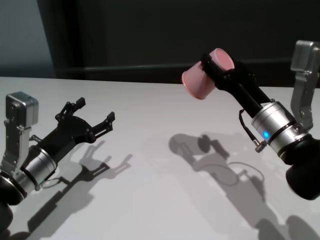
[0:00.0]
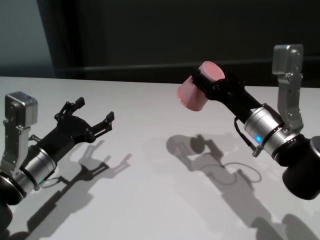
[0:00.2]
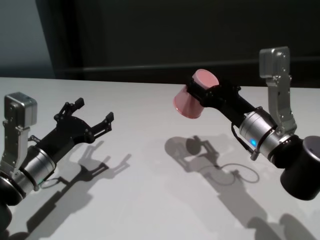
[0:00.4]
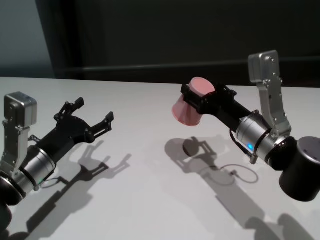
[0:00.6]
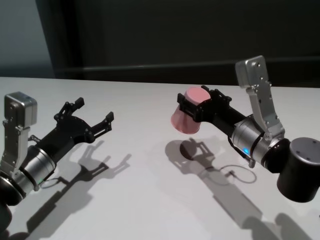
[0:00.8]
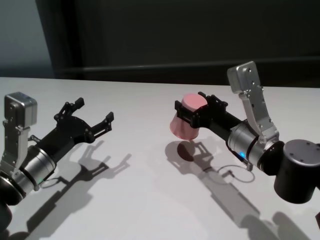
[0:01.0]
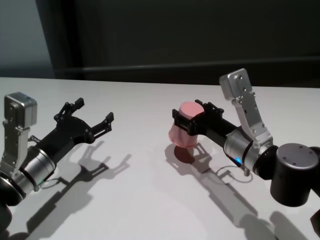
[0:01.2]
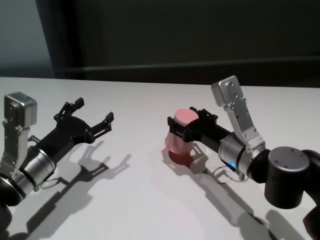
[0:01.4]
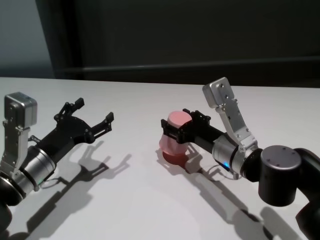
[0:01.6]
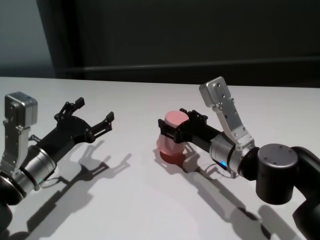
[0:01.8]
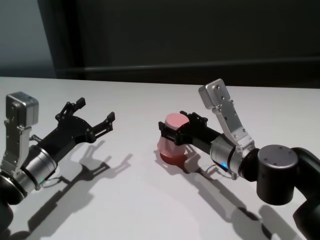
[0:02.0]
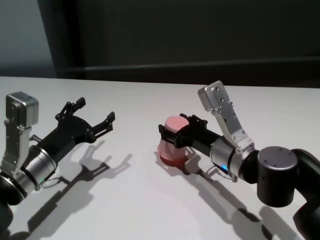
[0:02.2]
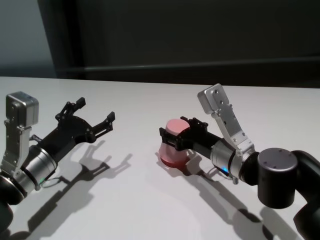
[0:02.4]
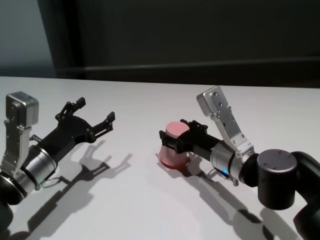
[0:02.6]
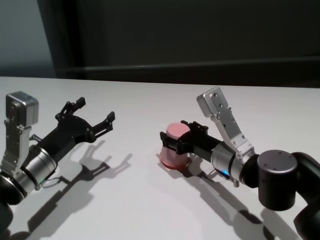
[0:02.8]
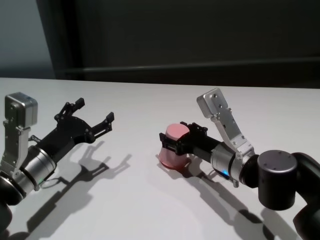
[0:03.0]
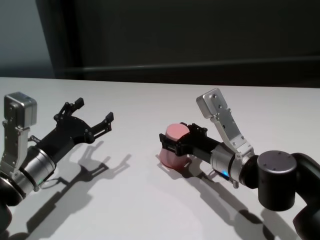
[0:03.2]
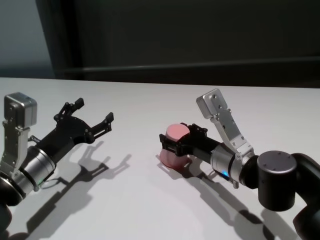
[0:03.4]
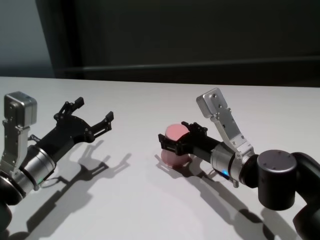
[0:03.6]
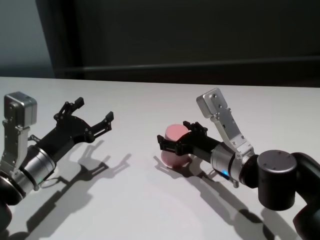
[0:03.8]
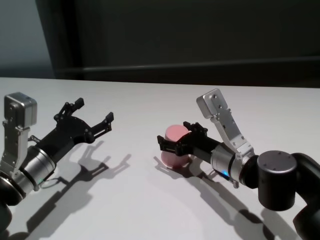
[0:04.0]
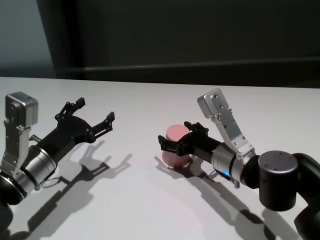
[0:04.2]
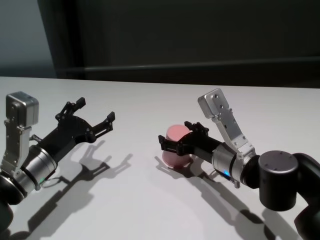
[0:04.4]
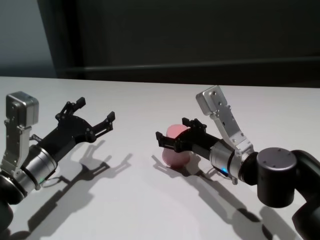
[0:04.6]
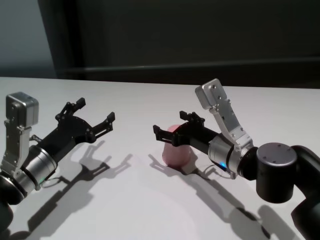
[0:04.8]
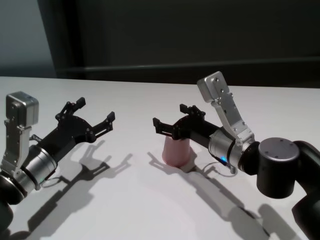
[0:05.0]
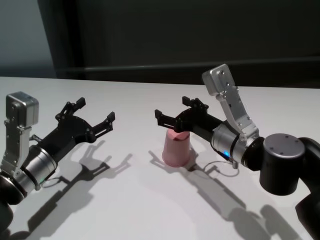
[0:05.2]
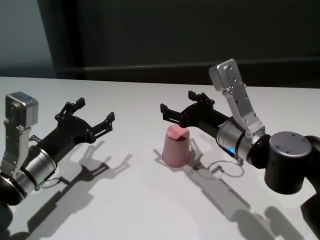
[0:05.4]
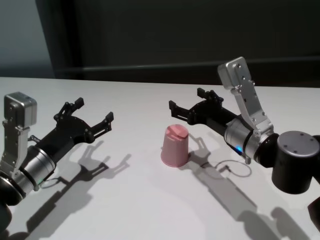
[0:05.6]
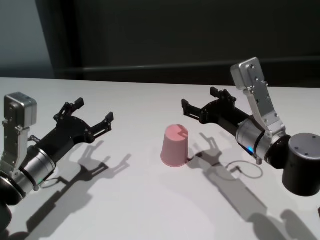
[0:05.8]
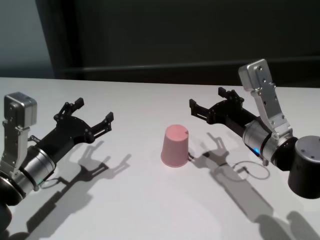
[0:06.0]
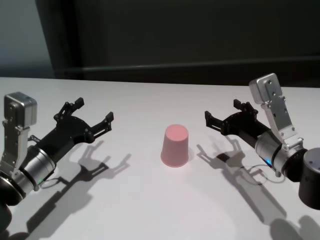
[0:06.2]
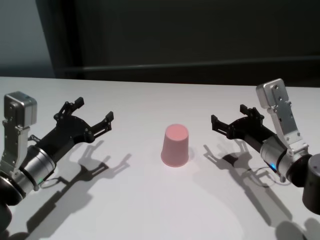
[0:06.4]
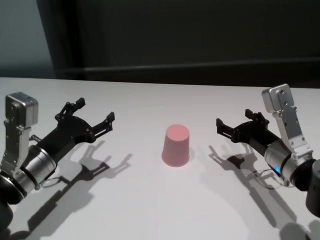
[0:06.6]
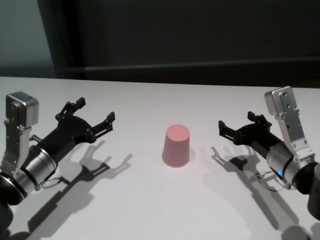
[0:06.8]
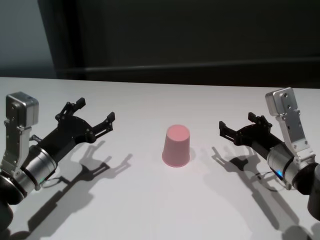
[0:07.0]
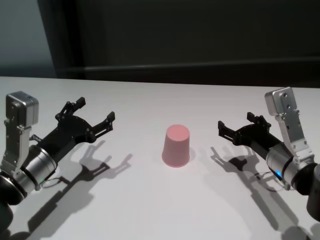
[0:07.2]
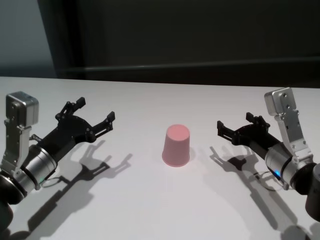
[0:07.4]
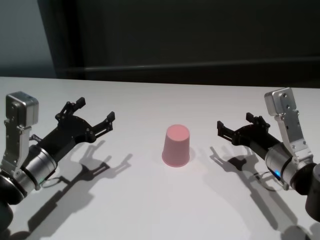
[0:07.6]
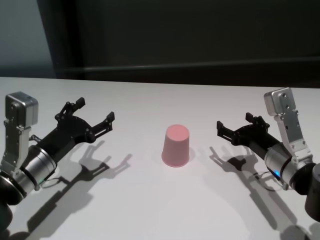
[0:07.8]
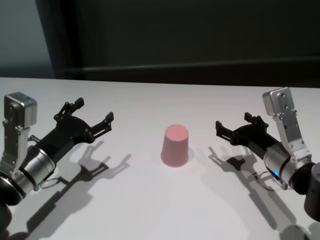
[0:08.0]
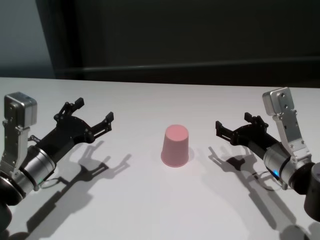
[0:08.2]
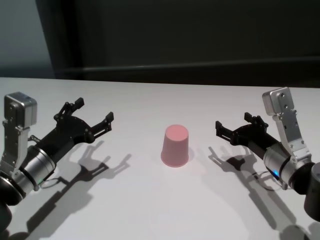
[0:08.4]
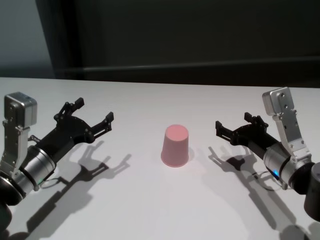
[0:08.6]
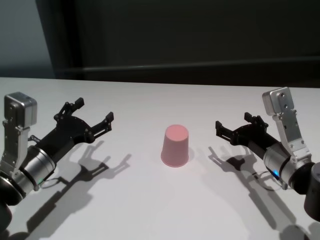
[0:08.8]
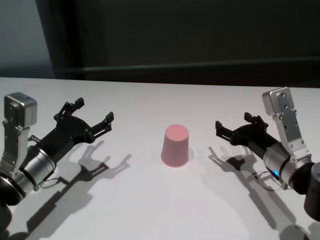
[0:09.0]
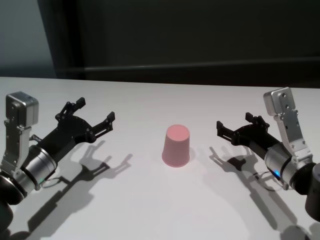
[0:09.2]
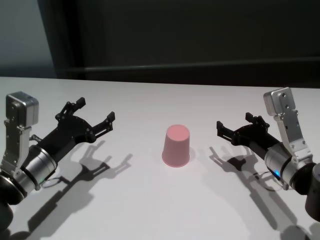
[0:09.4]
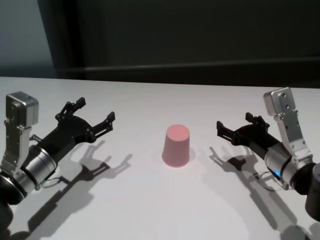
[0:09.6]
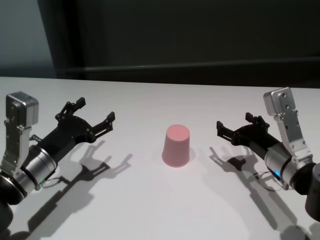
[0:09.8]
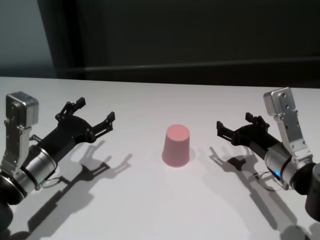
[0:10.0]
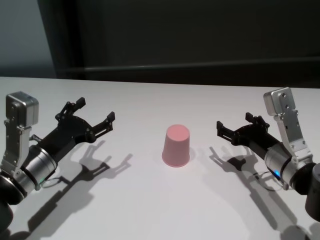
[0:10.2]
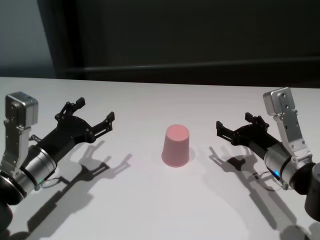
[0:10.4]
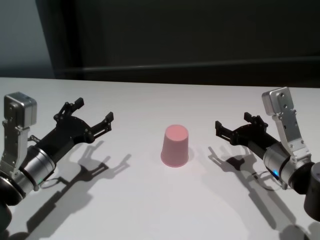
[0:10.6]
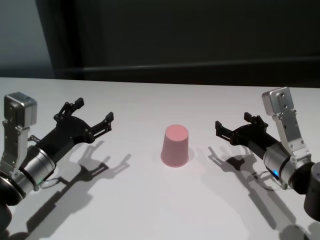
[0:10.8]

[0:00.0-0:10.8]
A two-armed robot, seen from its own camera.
Task of the whole recording: On the white table pick up the cup with one hand and transfer it to the other hand before turning it over.
Step, 0:00.0 to 0:04.8: Place the cup on the table with right gripper.

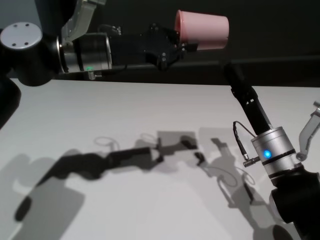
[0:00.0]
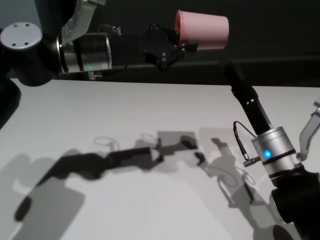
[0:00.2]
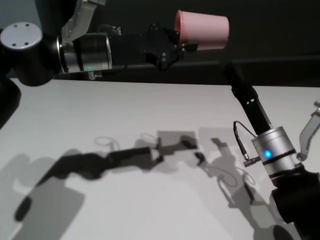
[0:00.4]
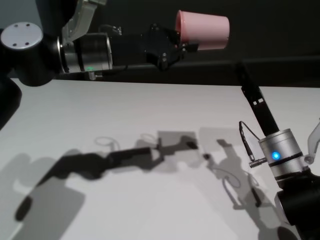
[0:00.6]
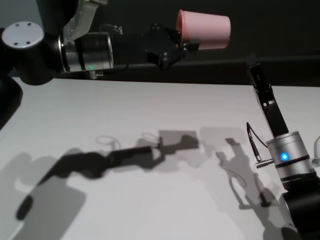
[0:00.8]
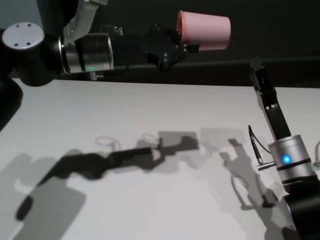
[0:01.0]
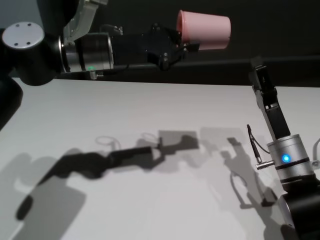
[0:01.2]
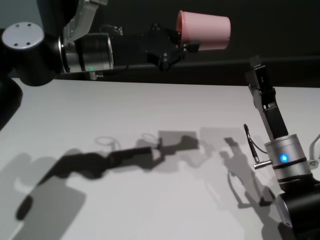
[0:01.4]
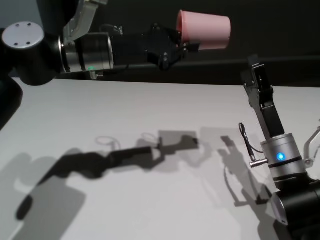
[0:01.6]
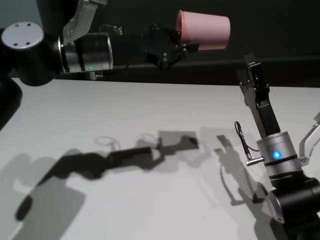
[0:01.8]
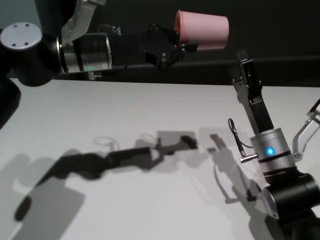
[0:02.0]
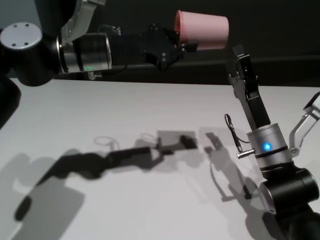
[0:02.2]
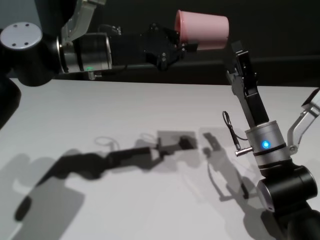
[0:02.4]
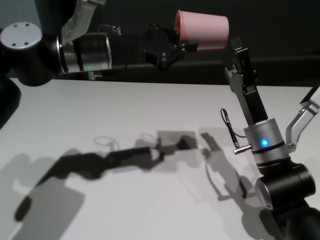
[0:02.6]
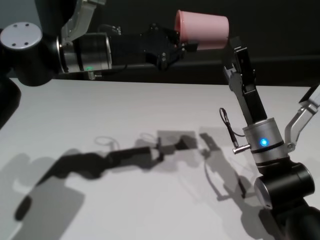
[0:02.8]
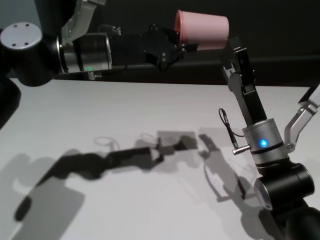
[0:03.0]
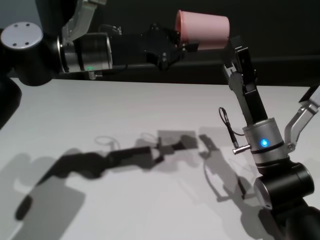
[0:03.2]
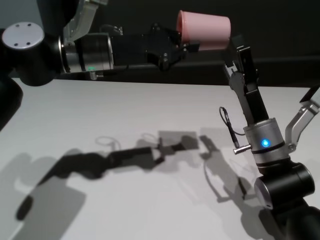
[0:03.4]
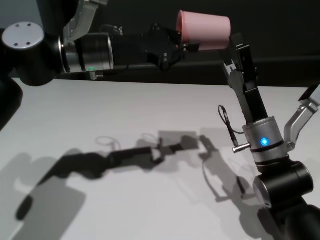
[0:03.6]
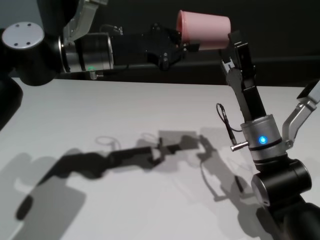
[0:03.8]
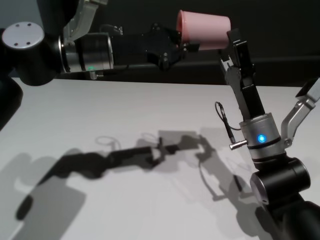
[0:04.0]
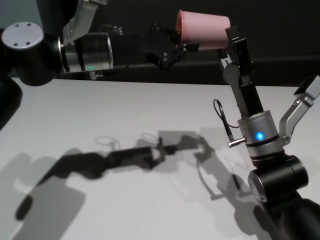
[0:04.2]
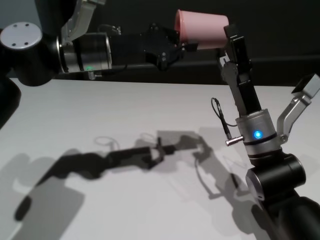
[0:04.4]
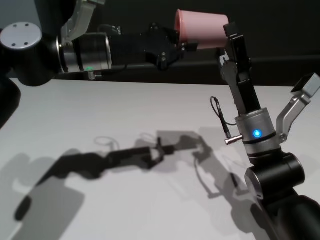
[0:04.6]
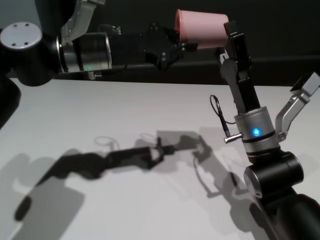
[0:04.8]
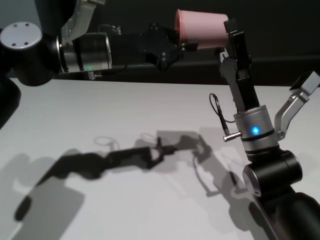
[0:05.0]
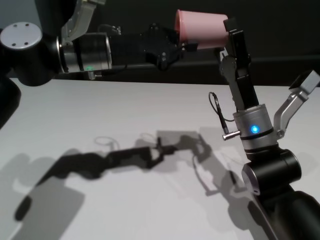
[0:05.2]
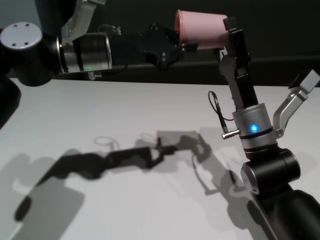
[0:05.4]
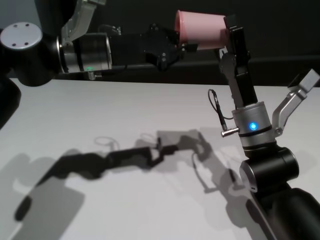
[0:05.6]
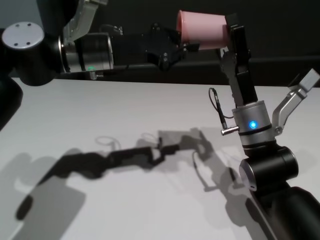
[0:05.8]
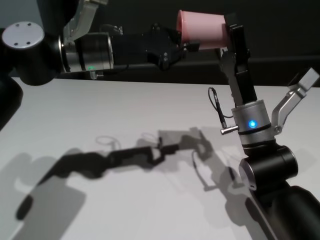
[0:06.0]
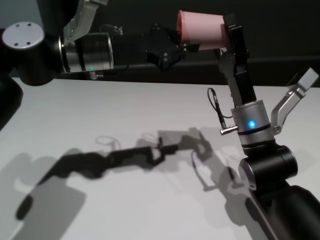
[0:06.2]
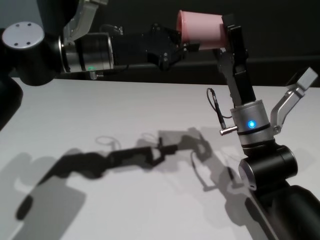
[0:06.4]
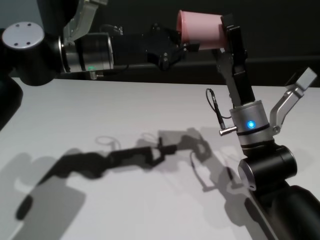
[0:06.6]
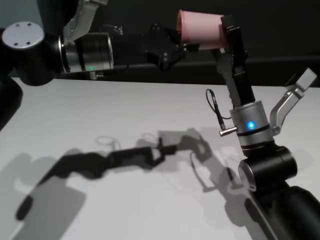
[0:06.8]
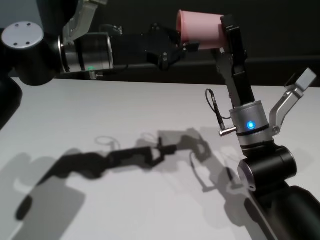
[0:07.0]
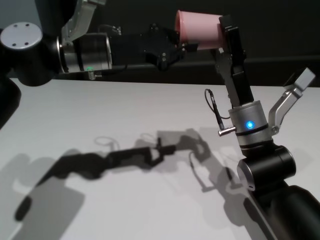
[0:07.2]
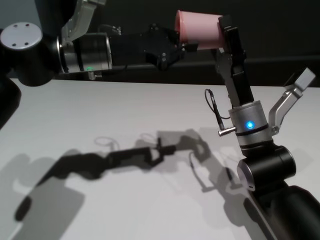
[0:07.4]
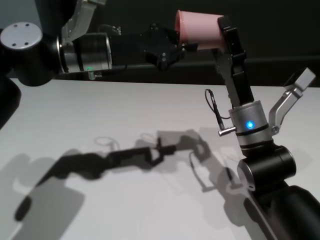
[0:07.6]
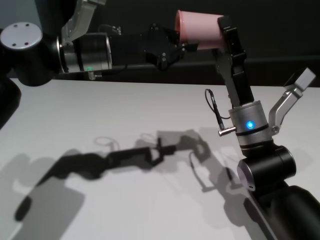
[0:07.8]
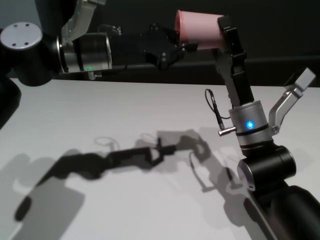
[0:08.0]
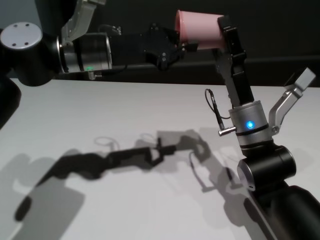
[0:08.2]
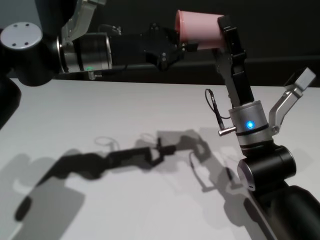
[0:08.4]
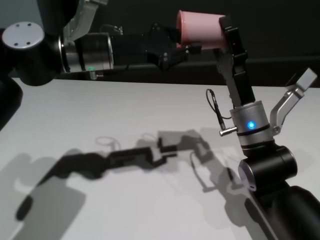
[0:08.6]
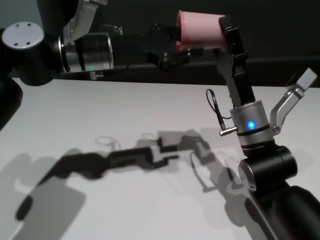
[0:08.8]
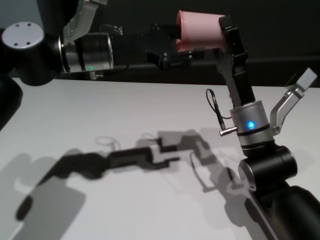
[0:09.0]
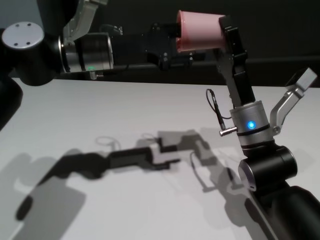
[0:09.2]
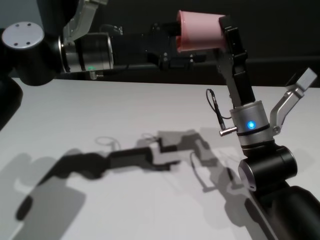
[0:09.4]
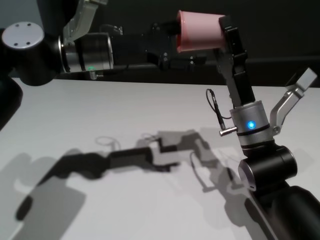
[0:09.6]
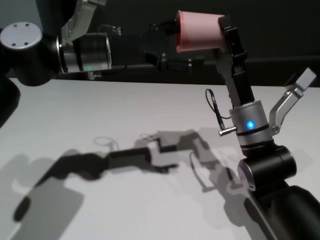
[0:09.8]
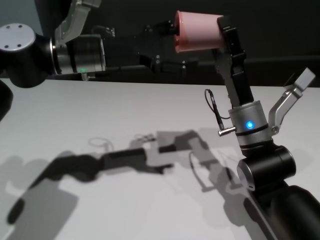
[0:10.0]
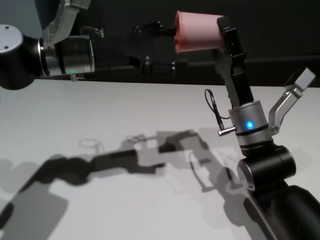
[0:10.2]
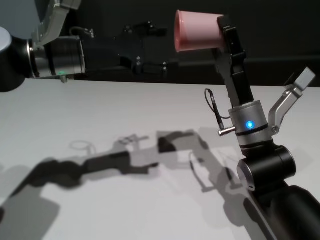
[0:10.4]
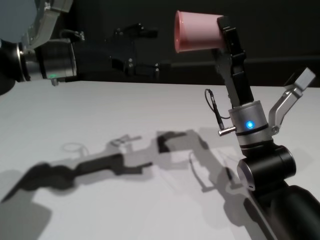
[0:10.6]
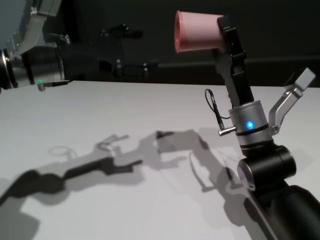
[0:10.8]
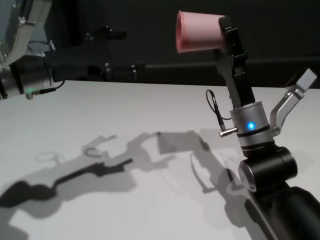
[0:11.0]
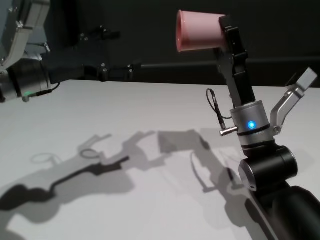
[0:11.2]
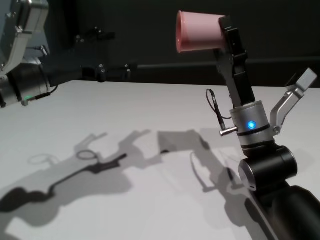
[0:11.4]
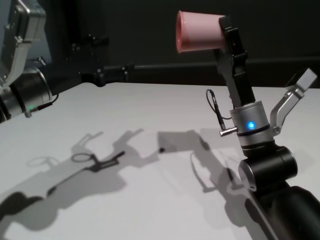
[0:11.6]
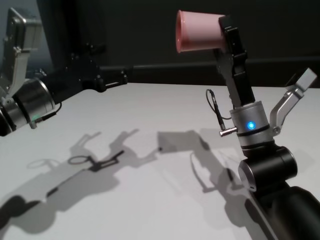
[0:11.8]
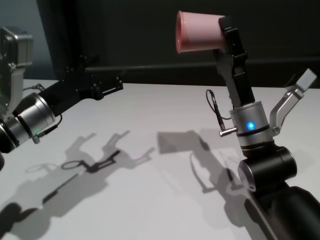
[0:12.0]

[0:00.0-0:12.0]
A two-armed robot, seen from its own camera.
Task of the whole recording: On the white table pick up the cup with one hand and transfer it to the other hand before turning it over.
Step, 0:00.0 to 0:10.8: Pass the cup to the right gripper.
